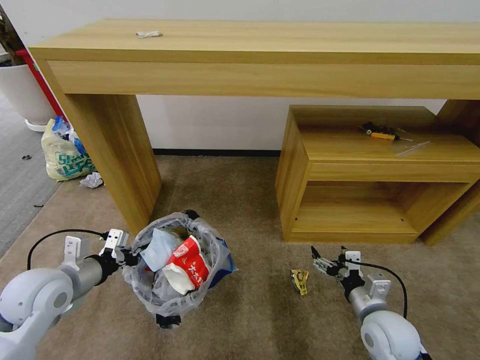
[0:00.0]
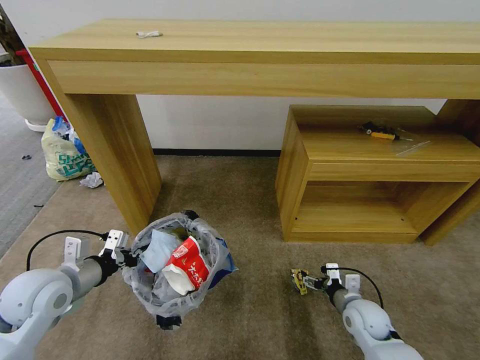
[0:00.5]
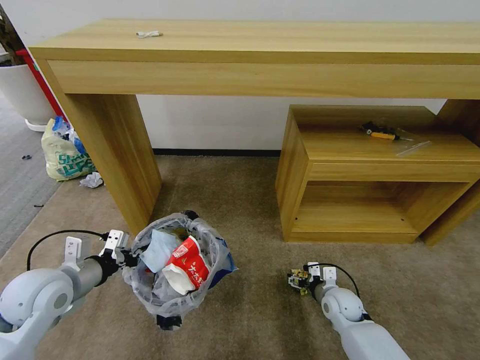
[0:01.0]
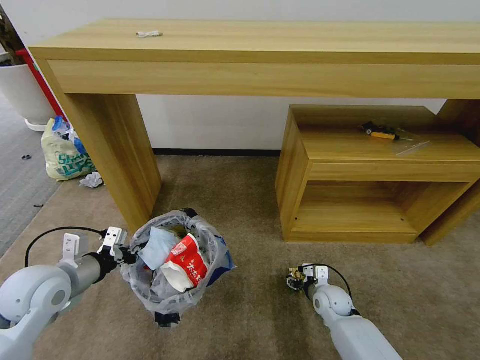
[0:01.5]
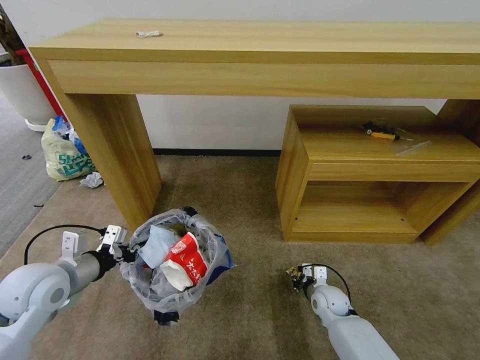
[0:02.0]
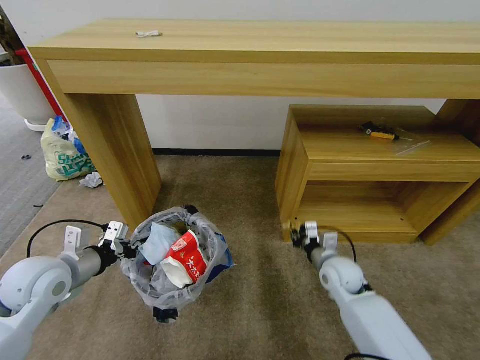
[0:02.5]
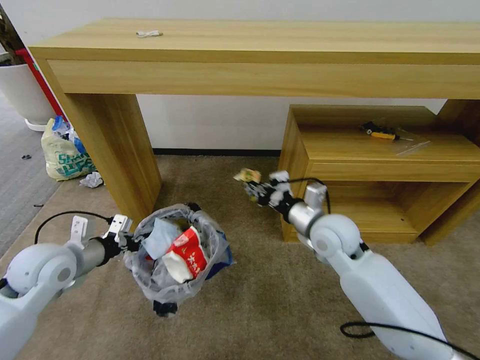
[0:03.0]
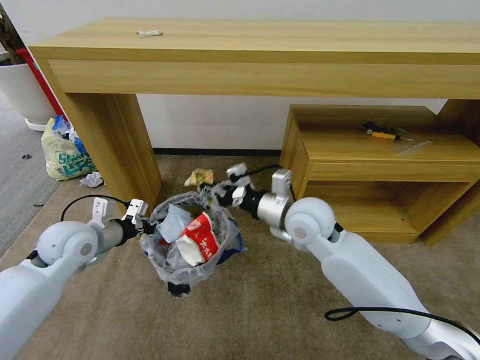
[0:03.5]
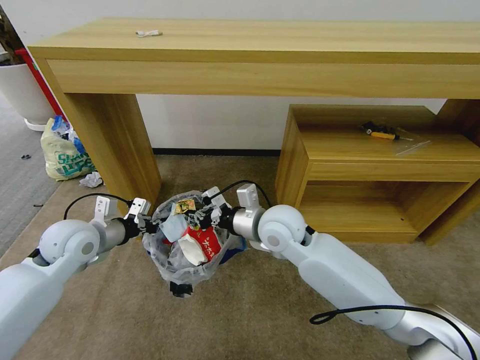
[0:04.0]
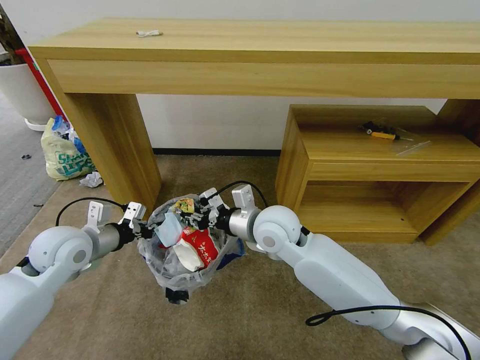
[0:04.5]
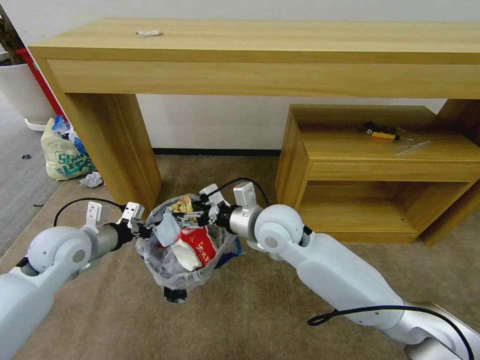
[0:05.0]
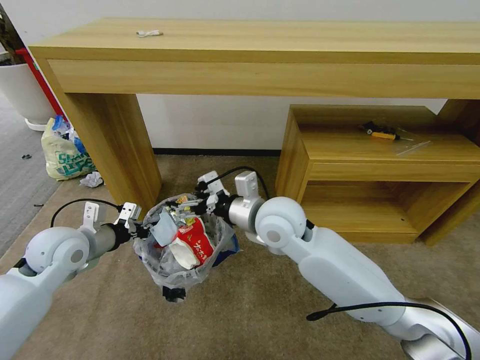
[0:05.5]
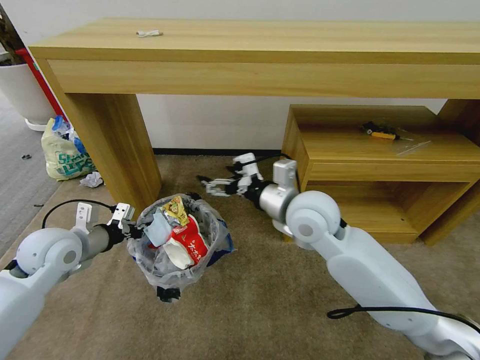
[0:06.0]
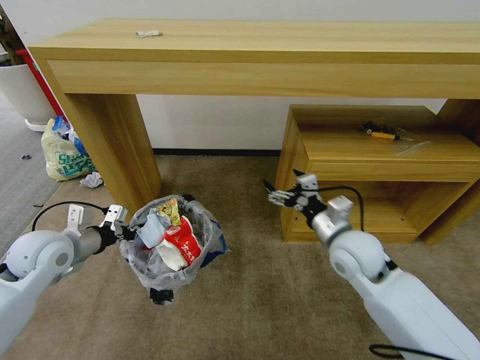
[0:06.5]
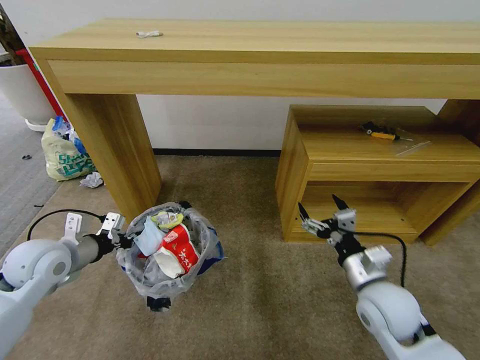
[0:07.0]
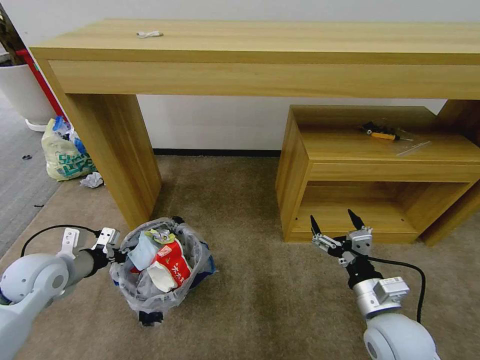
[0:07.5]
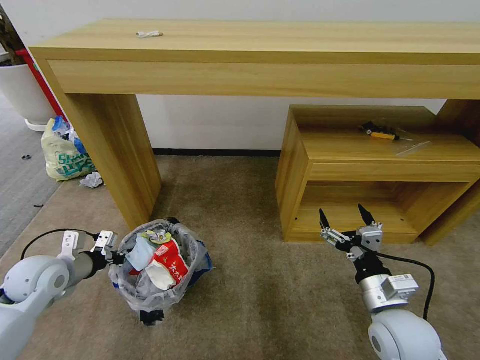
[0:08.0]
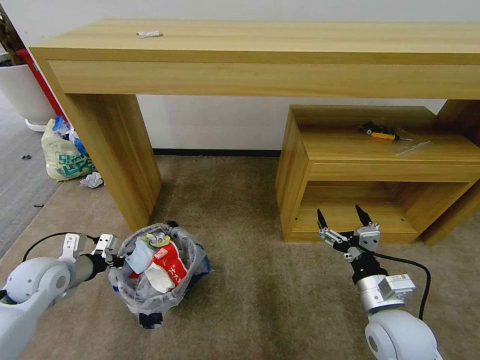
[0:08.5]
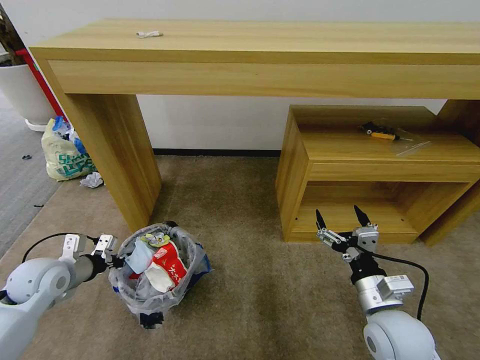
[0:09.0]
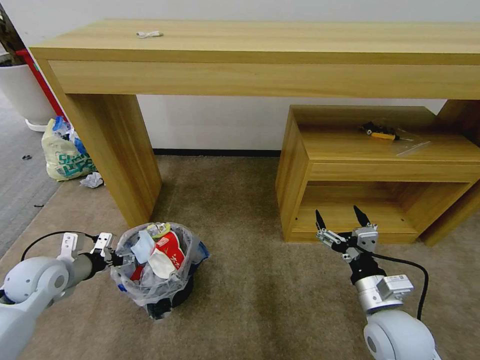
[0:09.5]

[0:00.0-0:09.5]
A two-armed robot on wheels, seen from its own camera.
Task of the whole recording: Pick up the trash bin and place the garbage on the floor into it.
0:00.0 to 0:02.0: The right gripper shifts about 20 cm downward and forward, and closes.
0:02.0 to 0:04.0: The right gripper heads upward and to the left, covering roughly 35 cm, while the left gripper moves forward, roughly 10 cm.
0:04.0 to 0:05.5: The right gripper opens.
0:05.5 to 0:07.5: The right gripper travels to the right, backward and downward by roughly 30 cm; the left gripper ends up approximately 5 cm from where it was.
0:07.5 to 0:09.5: The left gripper opens.

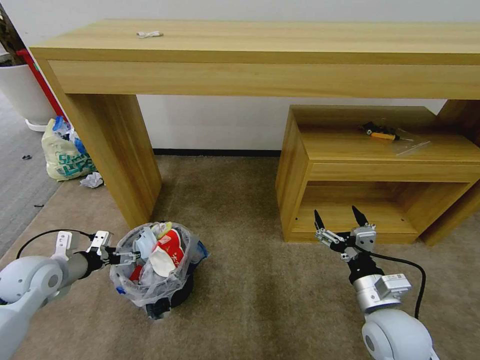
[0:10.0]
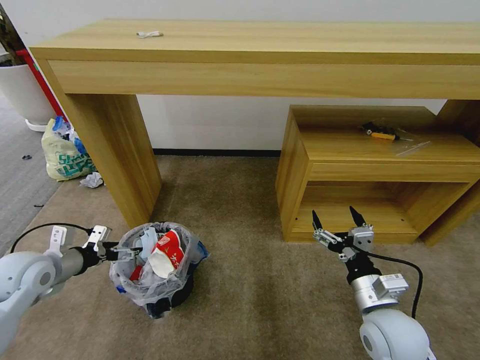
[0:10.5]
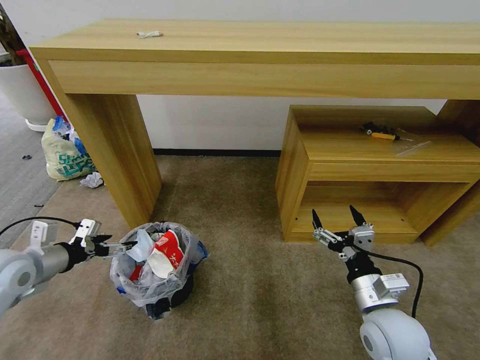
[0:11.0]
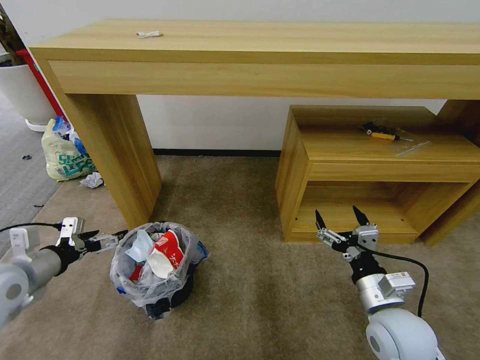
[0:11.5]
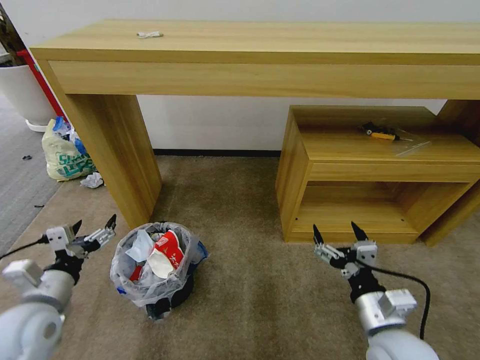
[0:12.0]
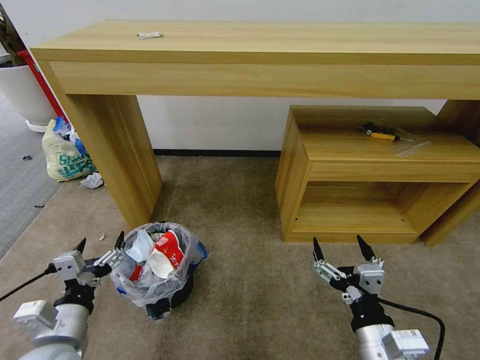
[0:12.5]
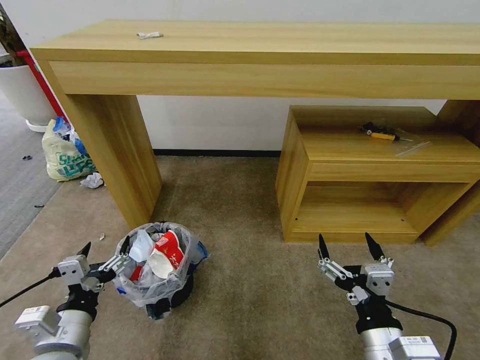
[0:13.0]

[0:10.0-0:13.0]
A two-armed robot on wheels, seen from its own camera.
Task of the whole recording: Pick up the trash bin and place the garbage on the floor into it.
0:10.0 to 0:11.5: The left gripper travels upward and backward by some 10 cm.
0:11.5 to 0:13.0: The right gripper shifts roughly 10 cm backward and to the left. Meanwhile the left gripper heads to the right, backward and downward, covering some 20 cm.

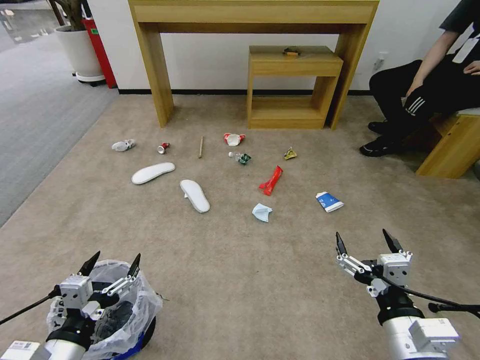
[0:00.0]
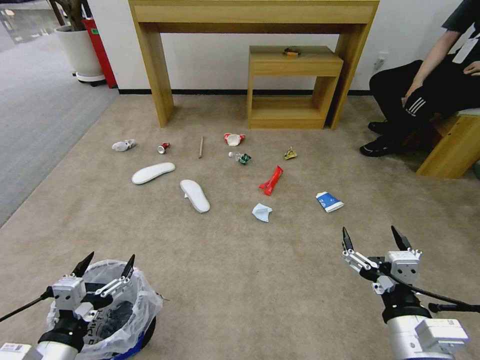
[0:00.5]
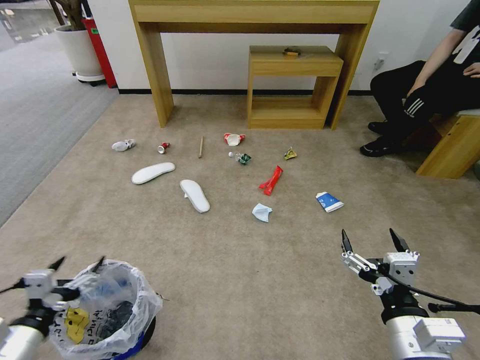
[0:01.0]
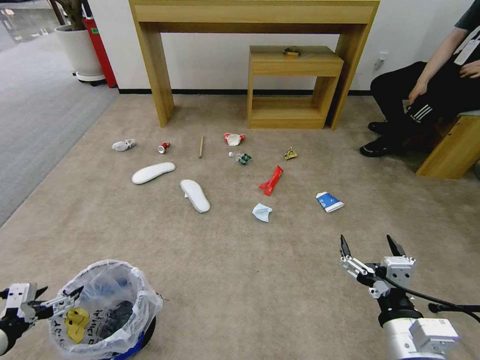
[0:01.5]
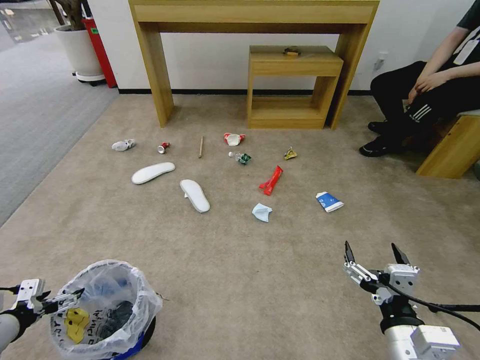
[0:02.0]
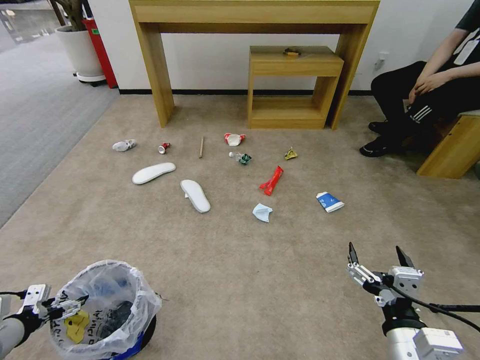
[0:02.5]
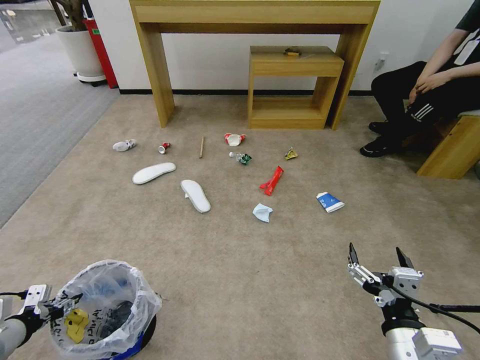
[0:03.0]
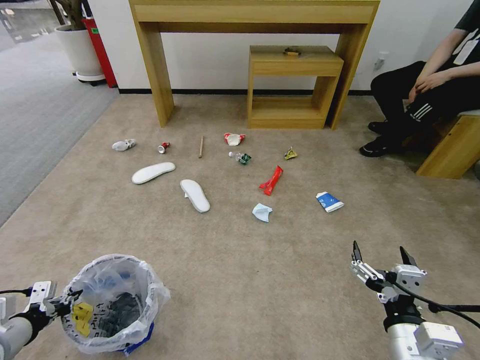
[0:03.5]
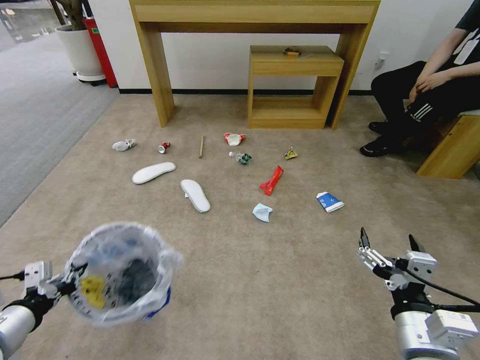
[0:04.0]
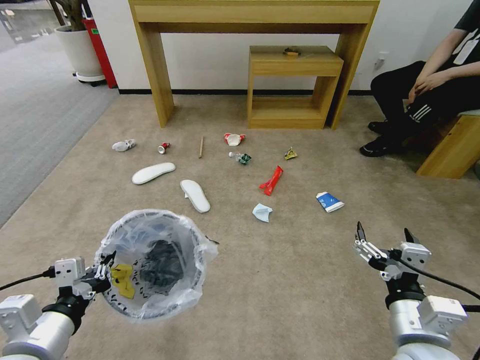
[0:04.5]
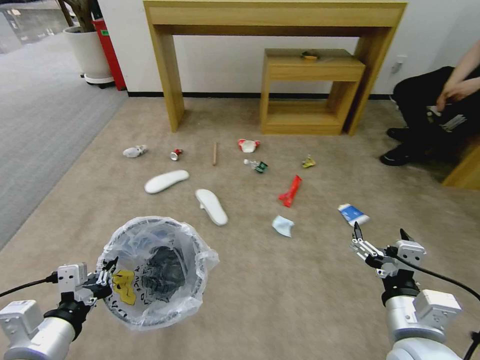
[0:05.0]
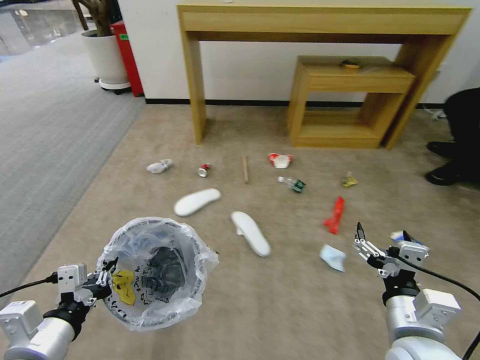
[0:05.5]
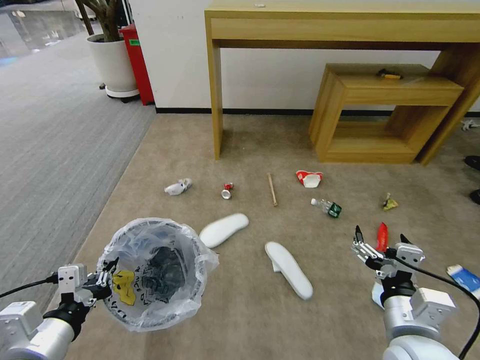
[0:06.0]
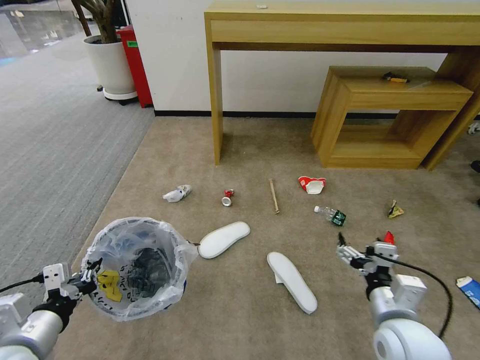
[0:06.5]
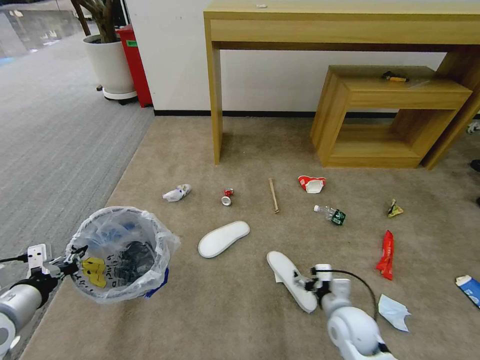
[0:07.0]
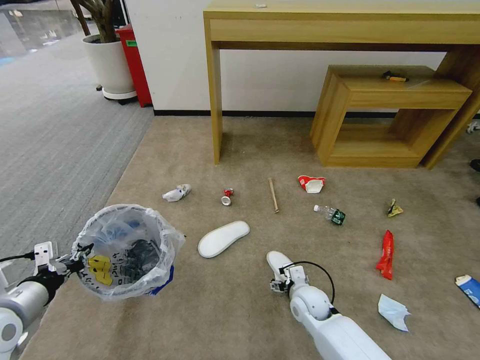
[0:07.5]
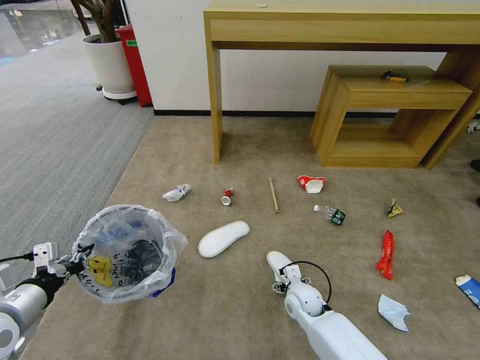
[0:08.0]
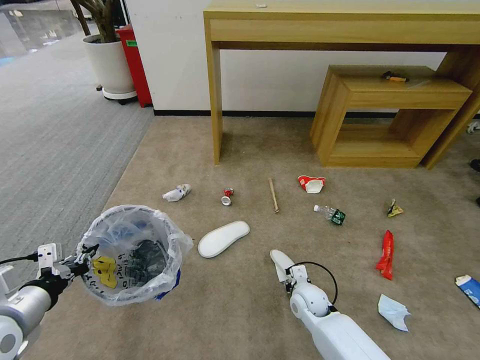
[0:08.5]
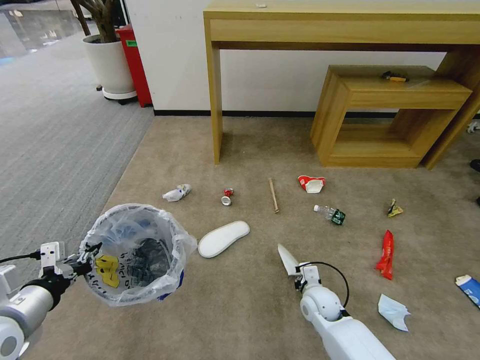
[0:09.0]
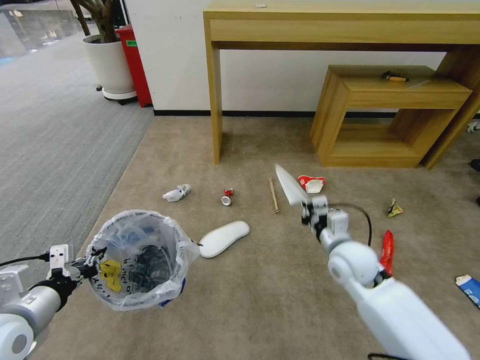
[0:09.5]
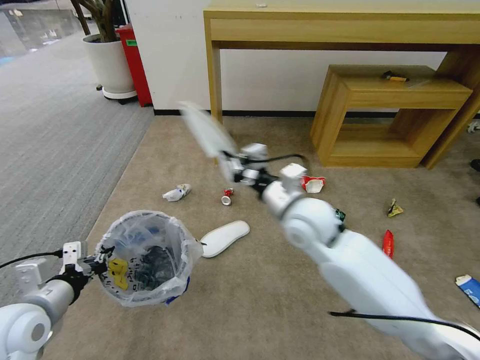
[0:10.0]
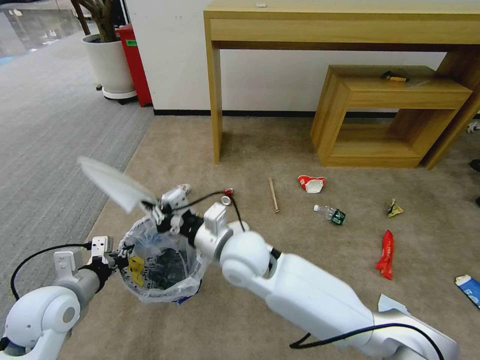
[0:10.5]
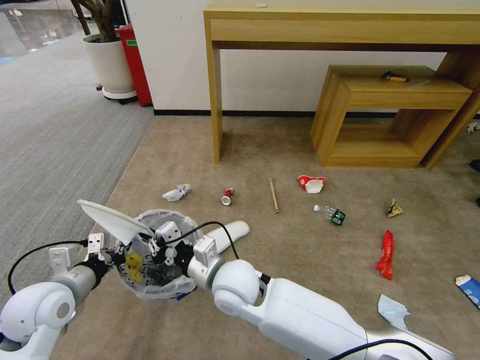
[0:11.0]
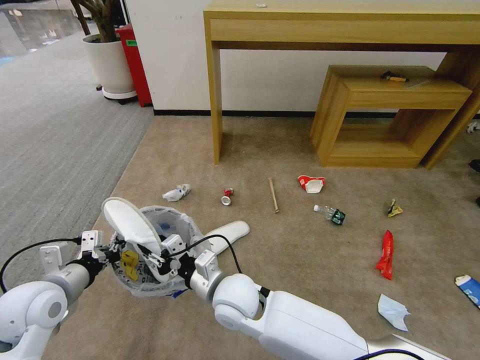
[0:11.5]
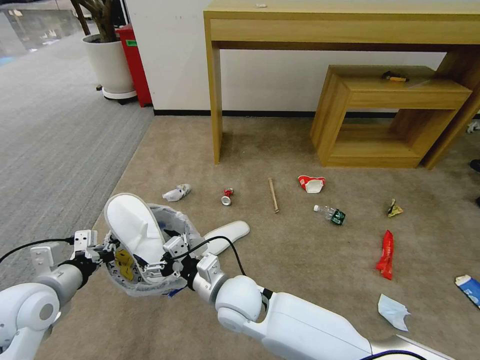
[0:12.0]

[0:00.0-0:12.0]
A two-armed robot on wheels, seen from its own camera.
Task of the whole recording: Pick up the trash bin and place the garbage on the floor into it.
0:02.0 to 0:04.0: The left gripper is displaced to the right and upward by approximately 10 cm, and closes.
0:04.0 to 0:06.0: The left gripper heads to the right, covering some 10 cm.
0:06.0 to 0:08.0: The left gripper moves to the left and forward, roughly 10 cm. The right gripper moves downward, forward and to the left, roughly 30 cm.
0:08.0 to 0:10.0: The right gripper moves upward, some 30 cm, and closes its fingers.
0:10.0 to 0:12.0: The right gripper is displaced downward, to the left and backward by some 20 cm, and opens up.

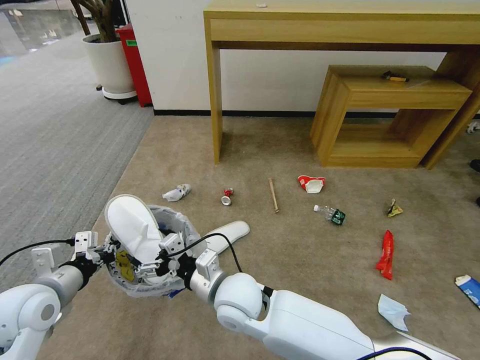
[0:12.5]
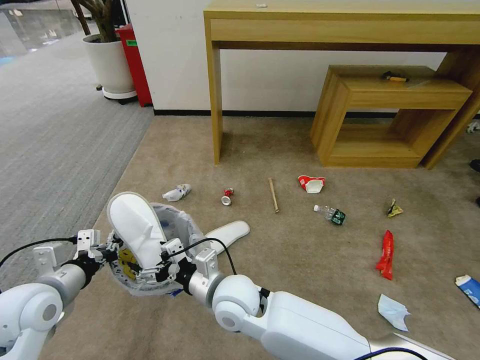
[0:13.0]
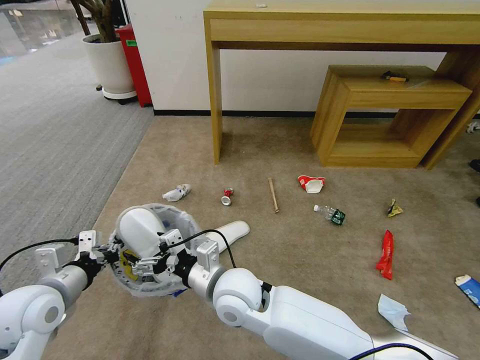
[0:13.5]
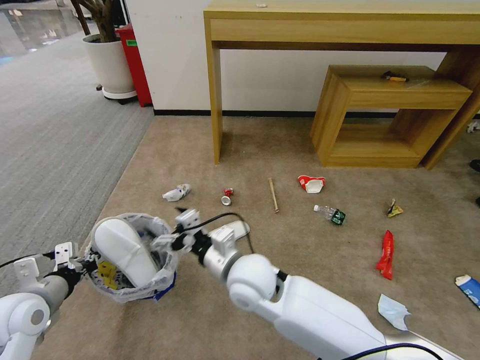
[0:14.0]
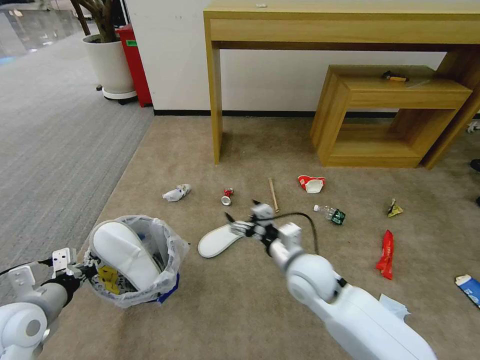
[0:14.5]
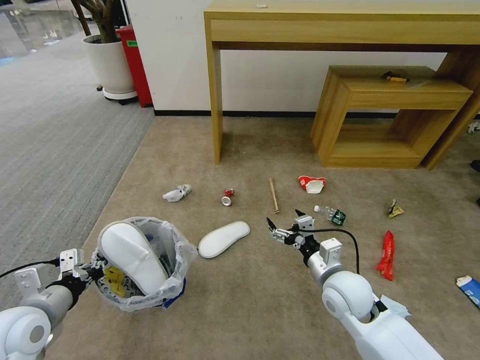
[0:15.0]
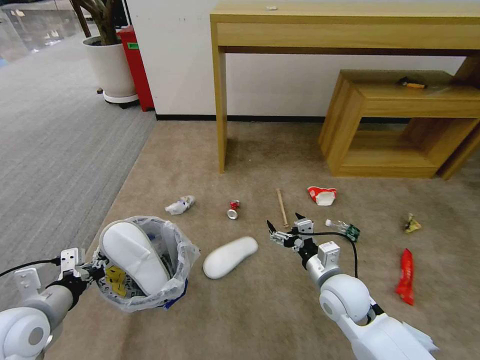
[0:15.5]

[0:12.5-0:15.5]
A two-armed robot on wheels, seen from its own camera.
Task of the whole recording: Pick up the trash bin and place the garbage on the floor into it.
0:12.5 to 0:14.0: The grippers stay close to where they were, moving slightly.
0:14.0 to 0:15.5: The right gripper heads to the right, covering roughly 20 cm.
